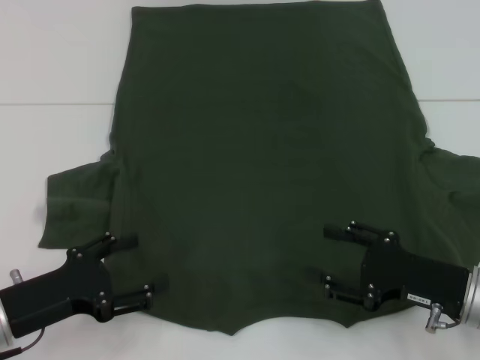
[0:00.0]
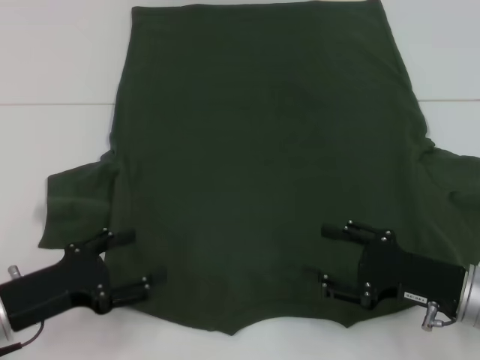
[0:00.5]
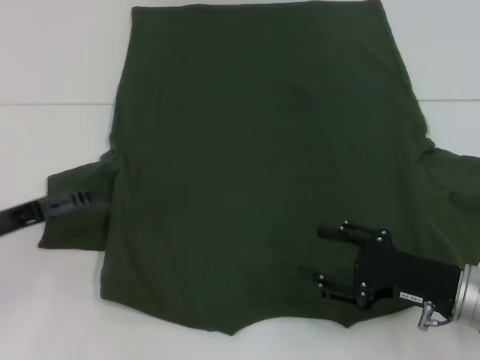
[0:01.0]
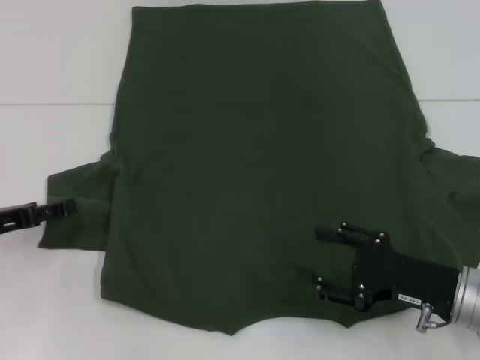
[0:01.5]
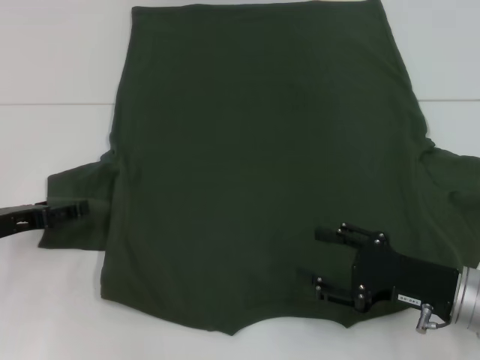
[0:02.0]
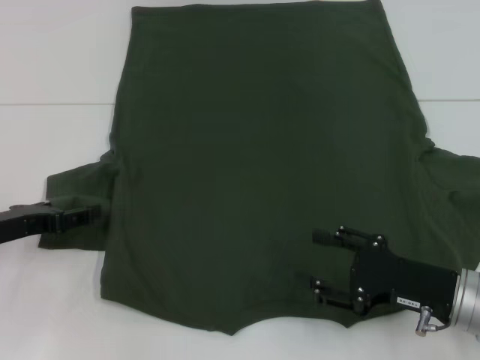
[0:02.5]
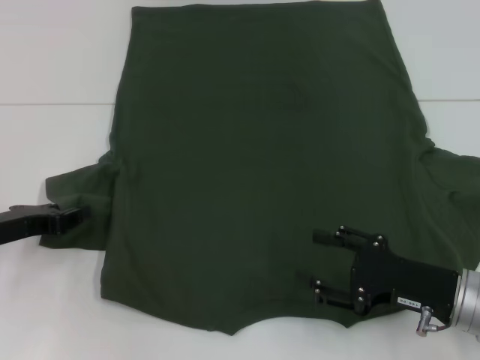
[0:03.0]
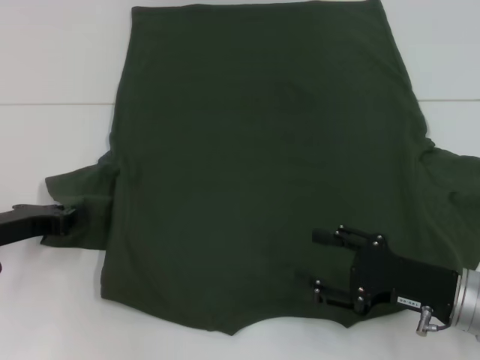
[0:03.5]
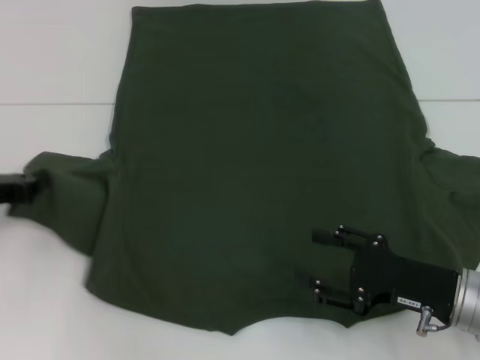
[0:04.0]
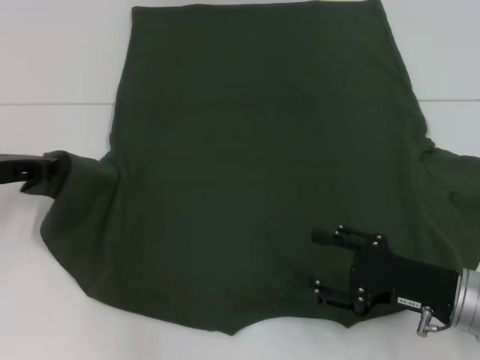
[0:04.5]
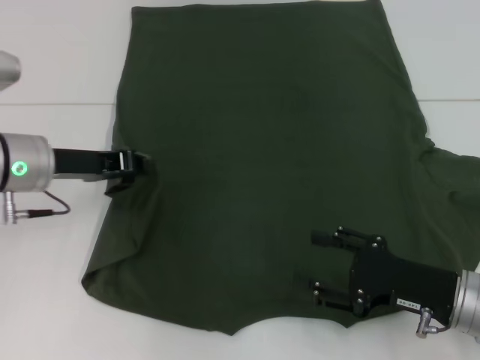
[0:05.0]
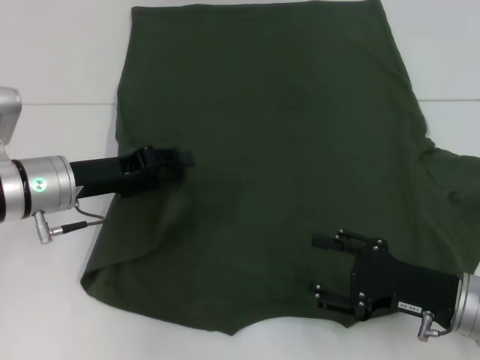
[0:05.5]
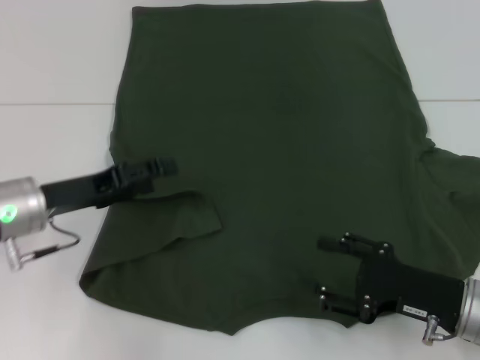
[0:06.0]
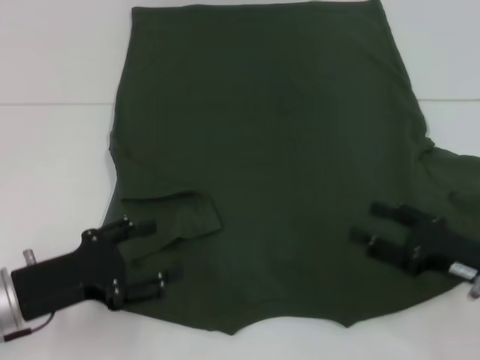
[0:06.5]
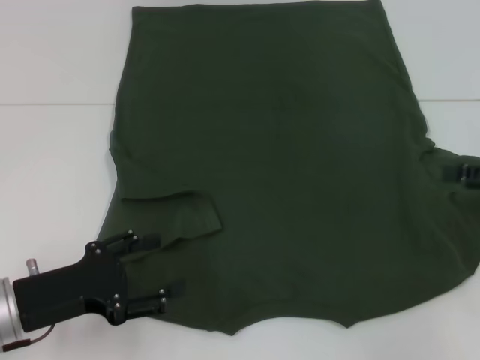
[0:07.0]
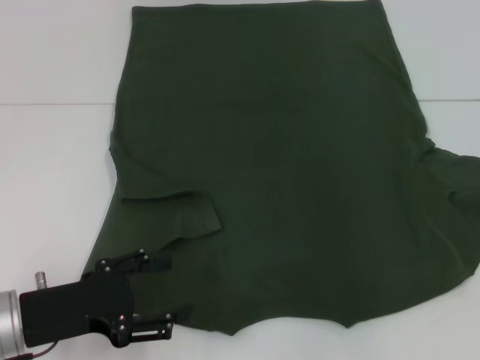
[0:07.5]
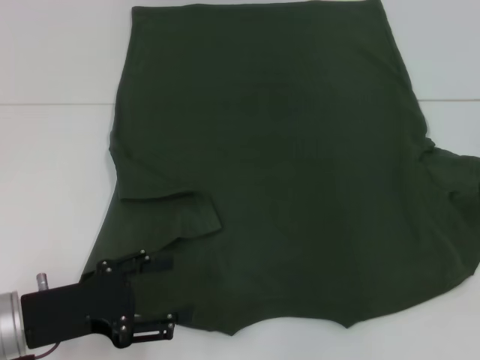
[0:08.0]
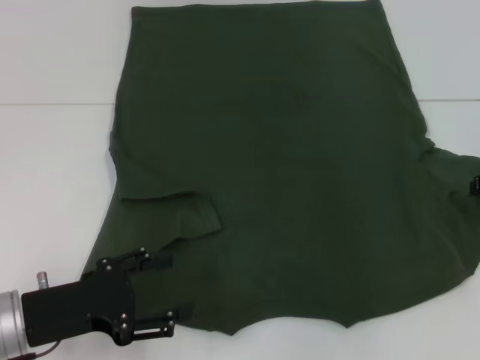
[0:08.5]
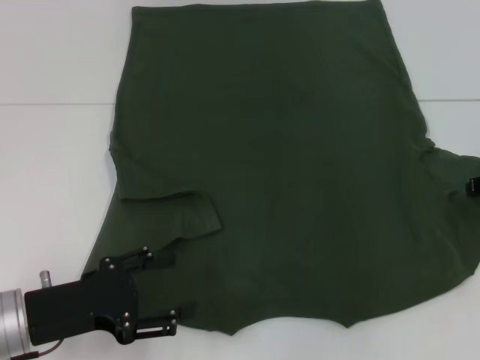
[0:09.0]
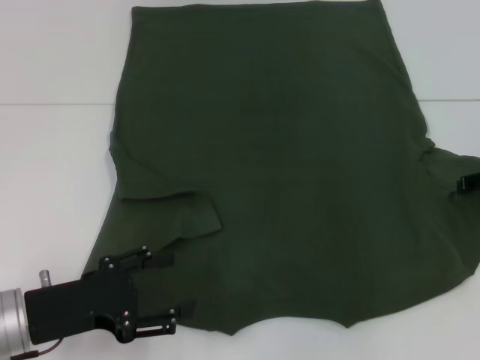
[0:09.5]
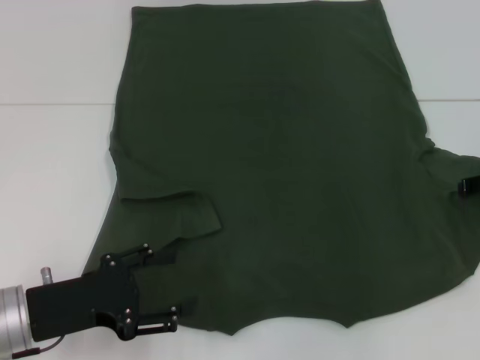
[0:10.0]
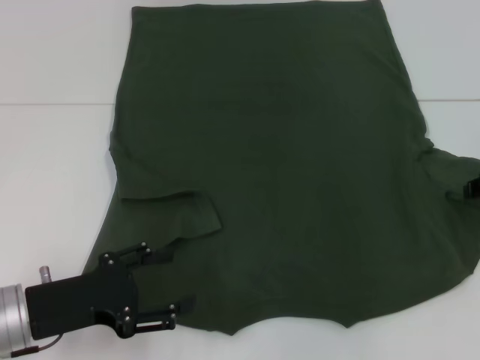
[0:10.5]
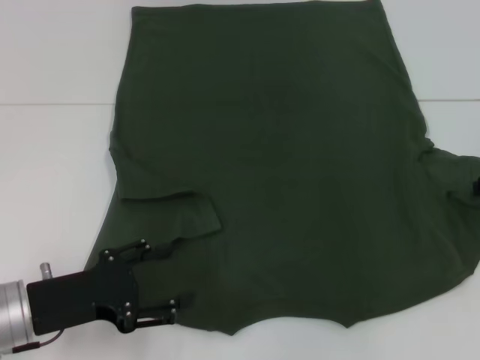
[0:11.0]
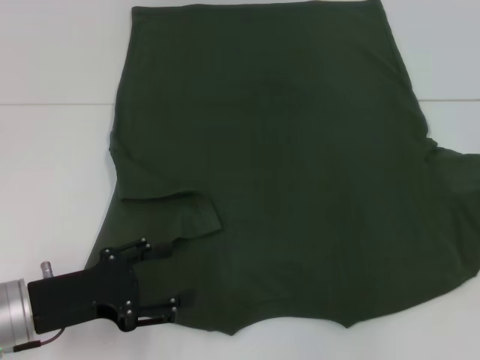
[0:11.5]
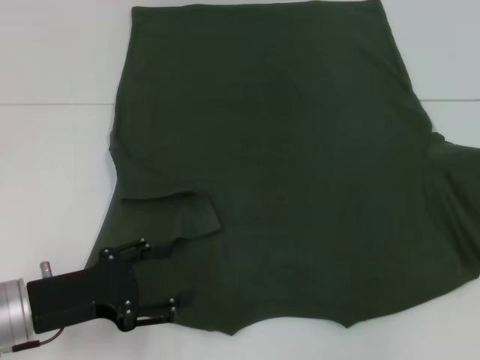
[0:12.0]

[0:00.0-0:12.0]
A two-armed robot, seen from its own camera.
Step, 0:00.0 to 0:06.0: Fold the bottom left sleeve with your left hand.
0:00.0 to 0:02.0: The left gripper heads forward and to the left, covering roughly 10 cm.
0:02.0 to 0:04.0: The left gripper closes.
0:04.0 to 0:06.0: The left gripper shifts approximately 10 cm to the right, and opens.
0:06.0 to 0:08.0: The right gripper is displaced upward, forward and to the right by some 20 cm. The left gripper travels backward by roughly 10 cm.
0:08.0 to 0:10.0: There are only small adjustments of the grippers.
0:10.0 to 0:12.0: The right gripper goes roughly 5 cm to the right, and closes up.

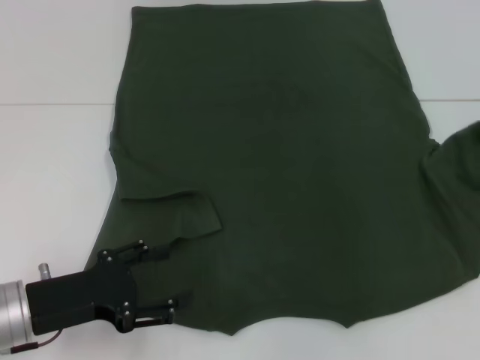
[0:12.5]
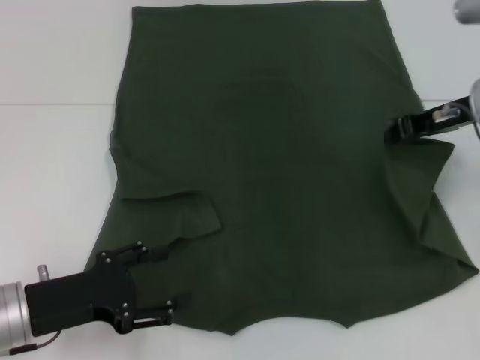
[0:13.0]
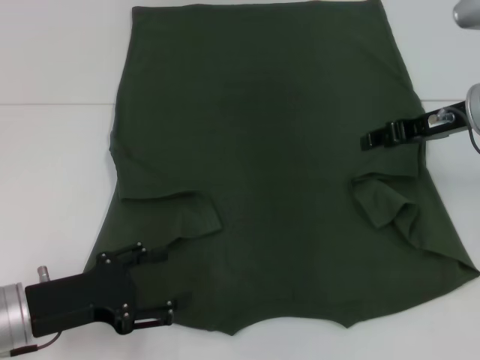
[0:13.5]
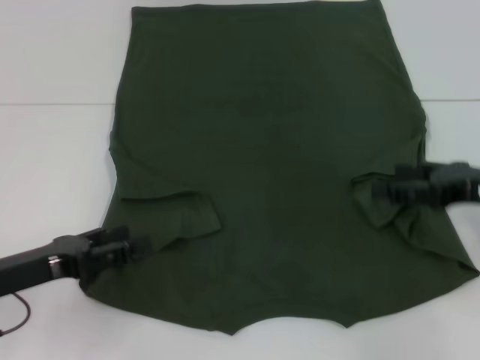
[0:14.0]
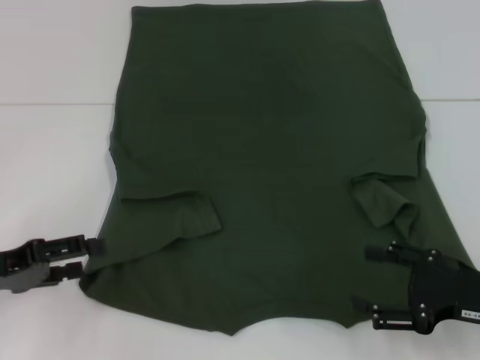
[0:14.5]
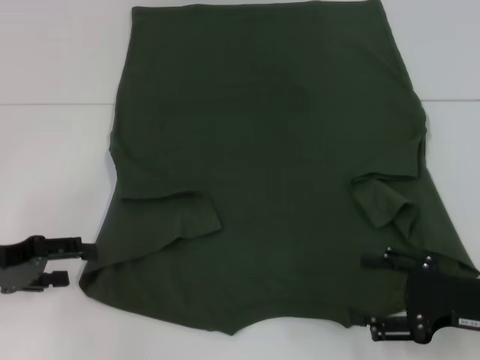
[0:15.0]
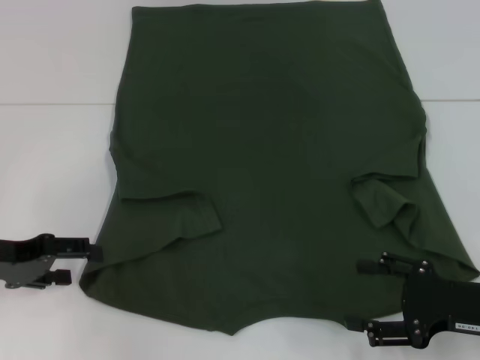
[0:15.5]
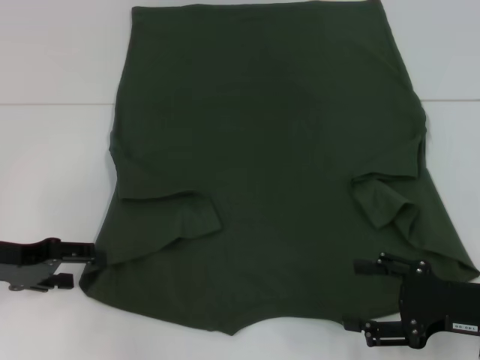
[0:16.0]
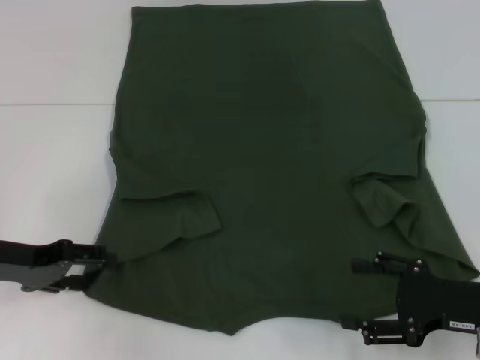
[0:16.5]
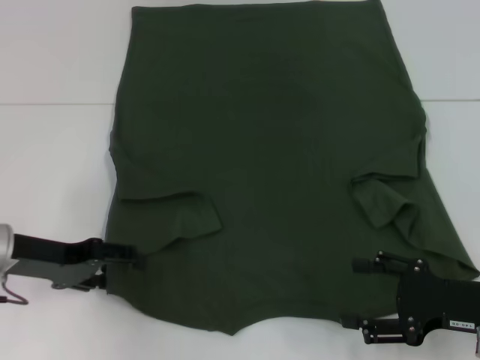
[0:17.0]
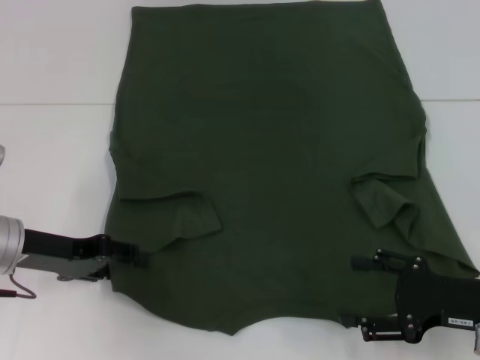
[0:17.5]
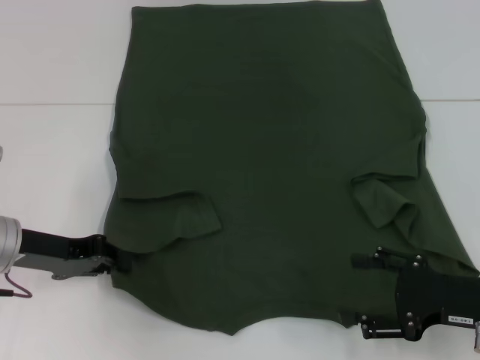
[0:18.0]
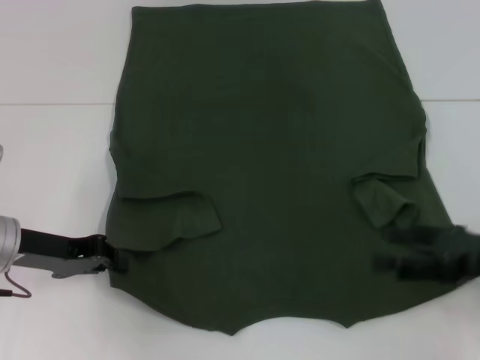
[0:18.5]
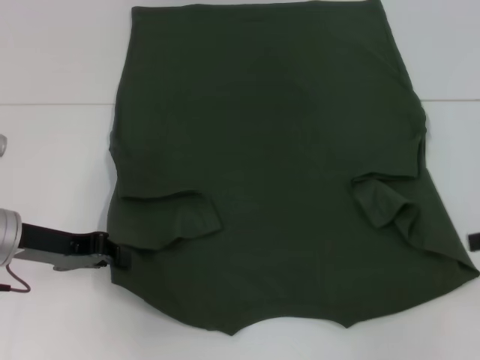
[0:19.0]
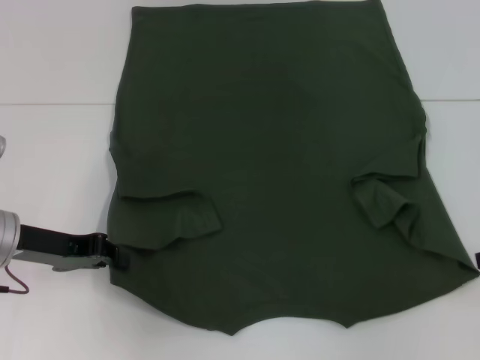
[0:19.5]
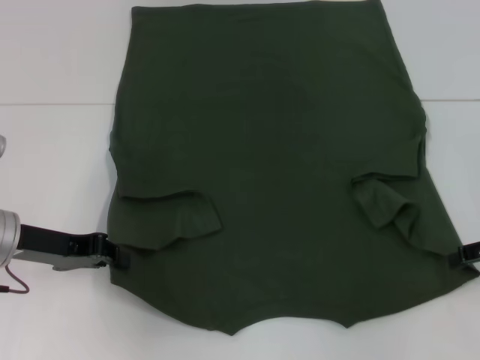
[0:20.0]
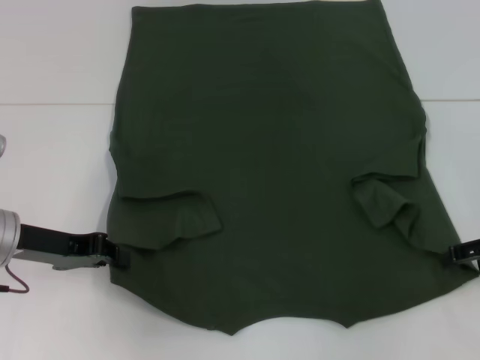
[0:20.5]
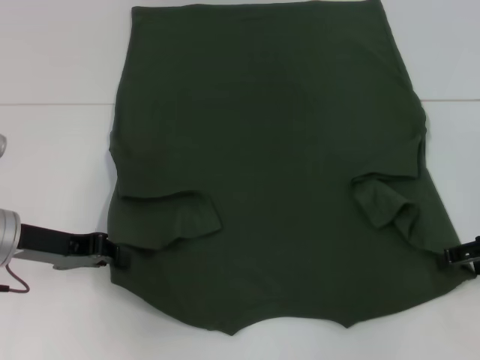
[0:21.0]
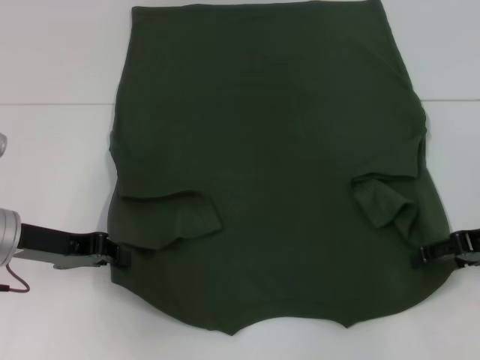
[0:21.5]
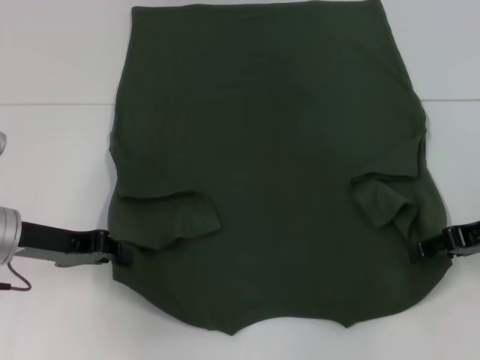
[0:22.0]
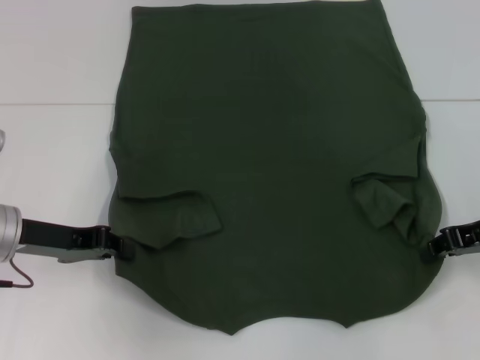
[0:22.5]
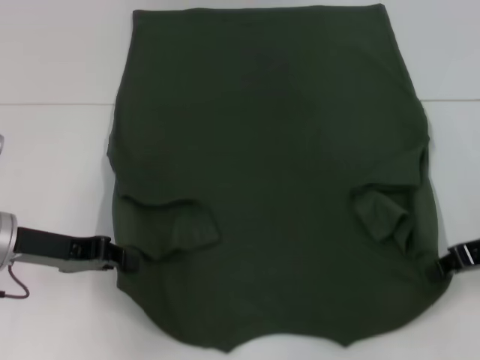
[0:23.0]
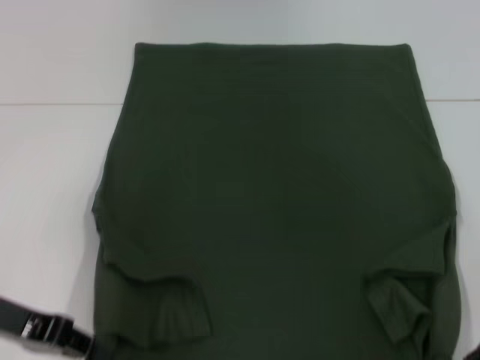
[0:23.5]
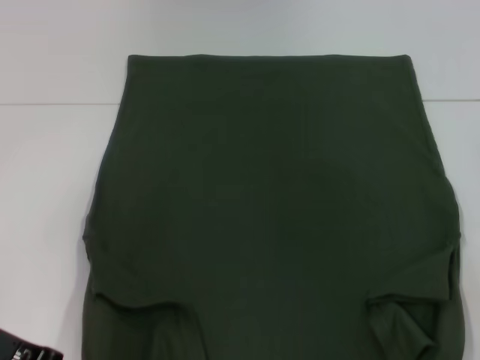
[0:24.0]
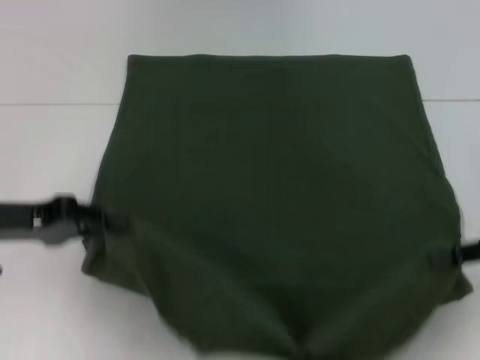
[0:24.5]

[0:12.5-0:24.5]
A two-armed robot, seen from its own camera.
Step, 0:14.0 to 0:18.0: Grab the bottom left corner with your left hand.
Step, 0:18.5 to 0:21.5: Grab the bottom right corner with your right hand.
0:12.5 to 0:14.5: The right gripper is displaced backward and downward by roughly 20 cm, and opens its fingers, while the left gripper travels to the left by about 10 cm.
0:14.5 to 0:16.5: The grippers stay close to where they were, moving slightly.
0:16.5 to 0:18.5: The right gripper moves about 5 cm, while the left gripper closes its fingers.
0:18.5 to 0:20.5: The right gripper heads forward, covering some 5 cm.
0:20.5 to 0:22.5: The right gripper closes its fingers.
0:22.5 to 0:24.5: The left gripper moves some 5 cm. The right gripper changes place by about 5 cm.

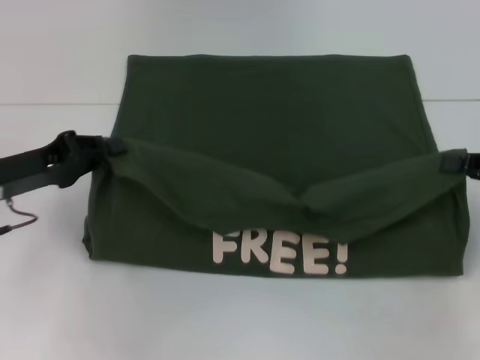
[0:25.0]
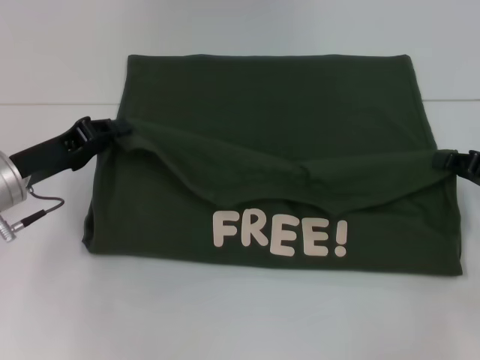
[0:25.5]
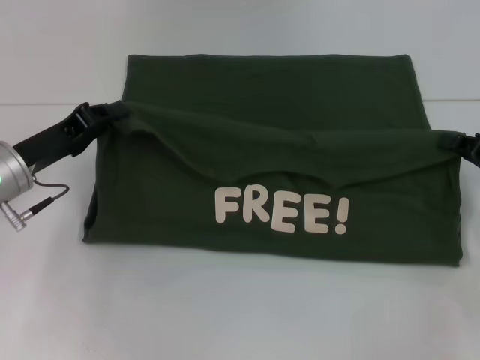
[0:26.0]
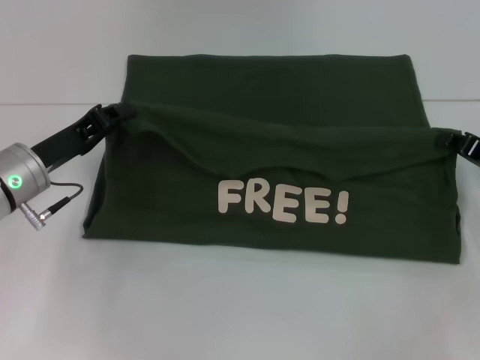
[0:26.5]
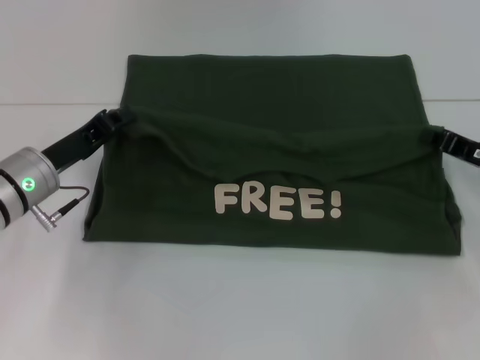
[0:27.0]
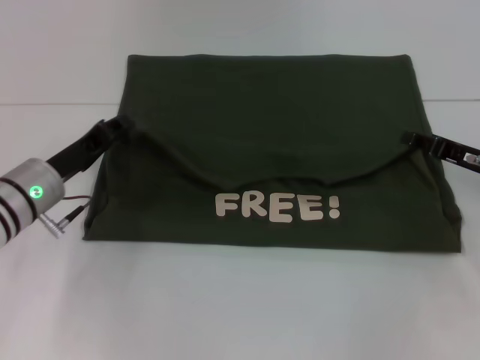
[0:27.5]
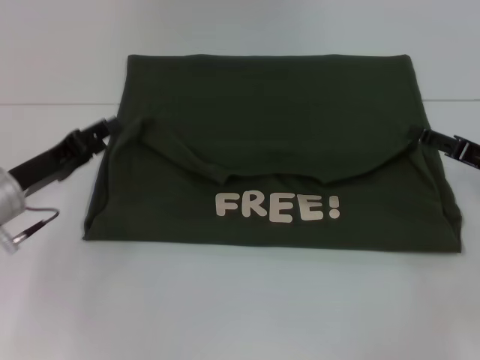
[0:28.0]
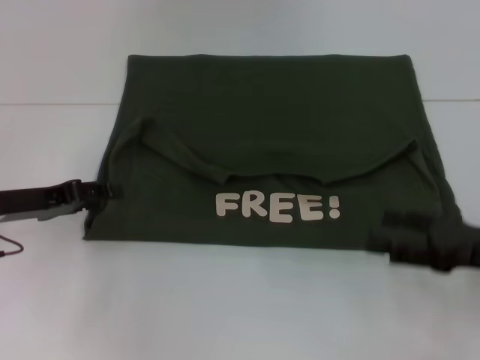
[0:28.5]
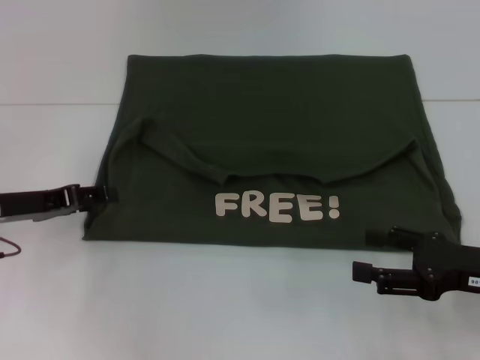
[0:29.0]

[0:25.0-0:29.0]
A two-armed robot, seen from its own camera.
Step, 0:25.0 to 0:27.5: Fold the clothes with your left hand.
Step, 0:25.0 to 0:27.5: Fold the clothes with your right hand.
0:25.0 to 0:27.0: The right gripper moves downward and forward, roughly 10 cm. The left gripper ends up about 5 cm from where it was.
0:27.0 to 0:29.0: The right gripper shifts some 10 cm backward, and opens; the left gripper travels to the left by about 5 cm, and opens up.
